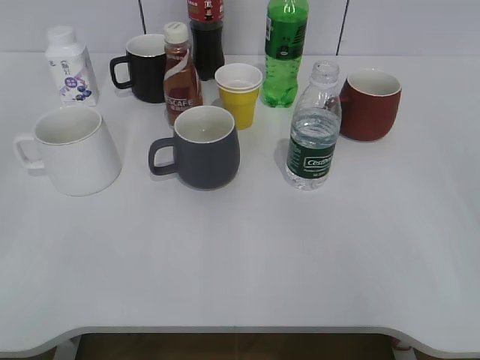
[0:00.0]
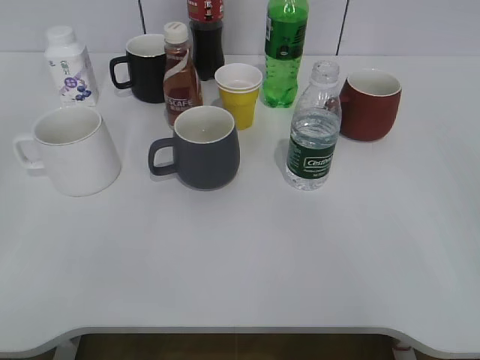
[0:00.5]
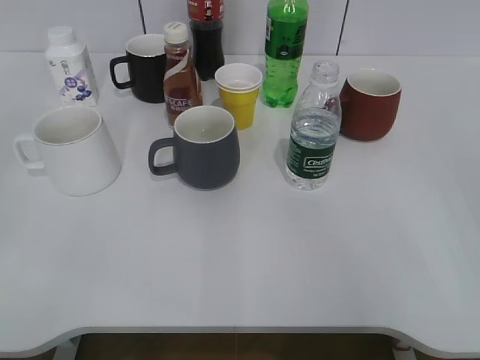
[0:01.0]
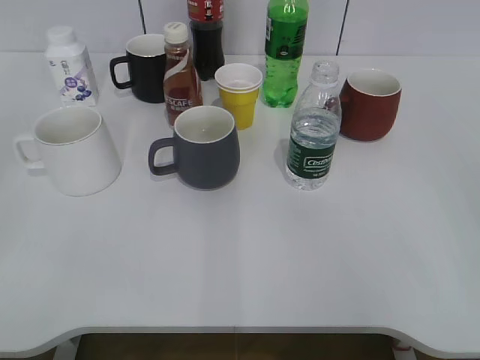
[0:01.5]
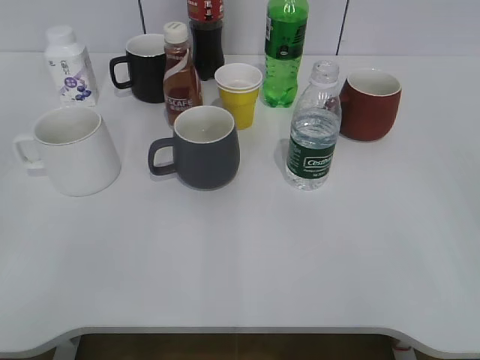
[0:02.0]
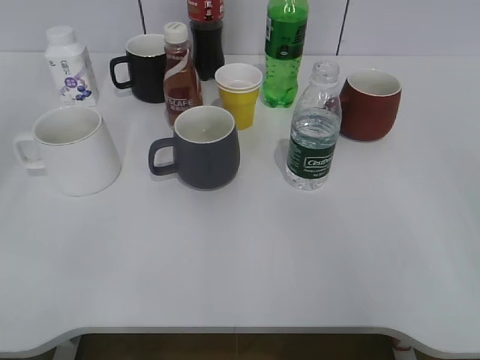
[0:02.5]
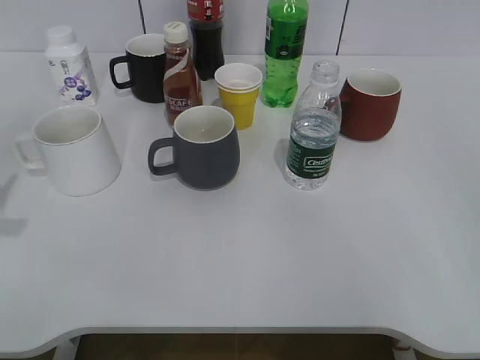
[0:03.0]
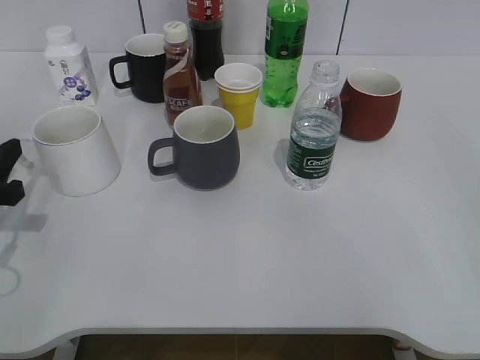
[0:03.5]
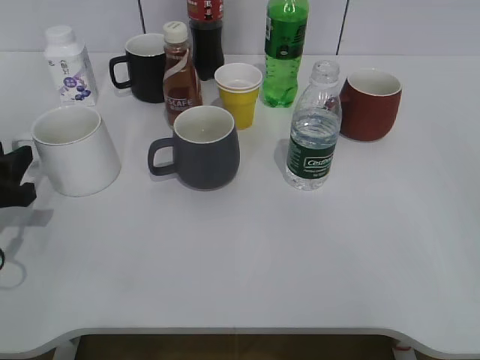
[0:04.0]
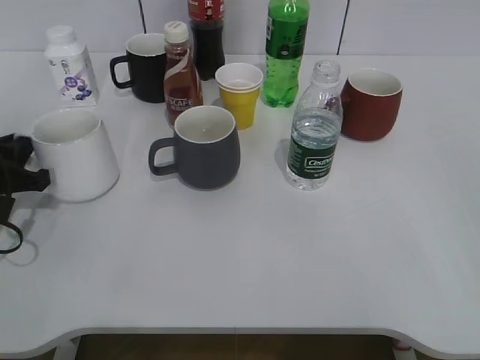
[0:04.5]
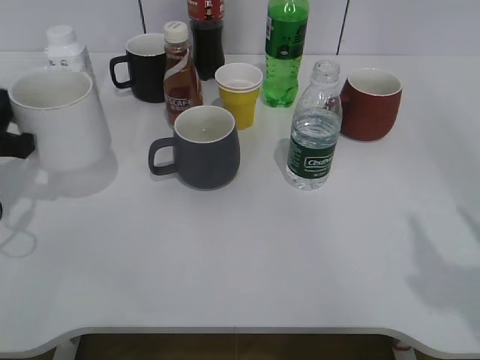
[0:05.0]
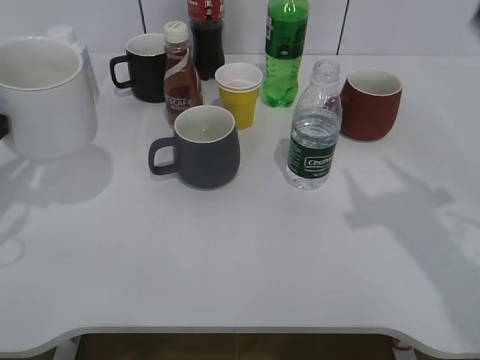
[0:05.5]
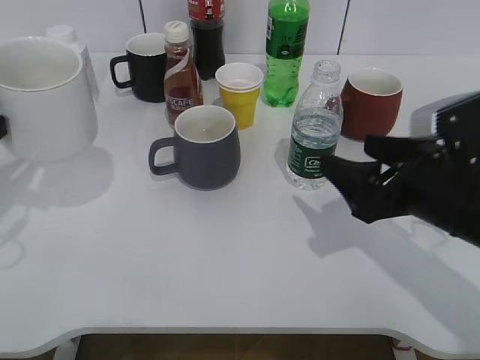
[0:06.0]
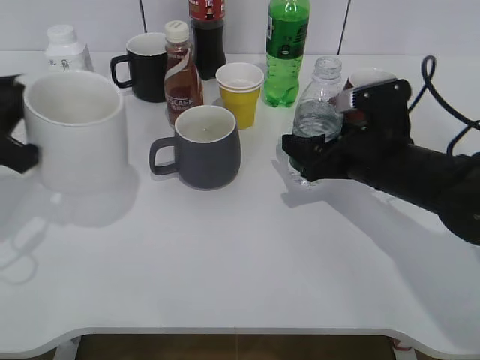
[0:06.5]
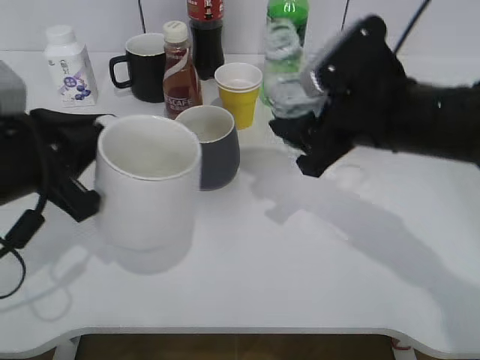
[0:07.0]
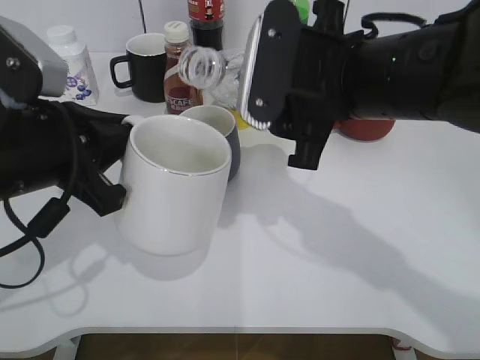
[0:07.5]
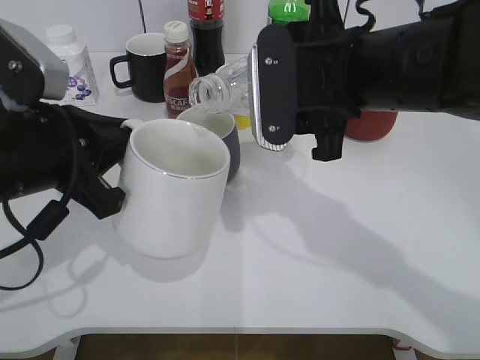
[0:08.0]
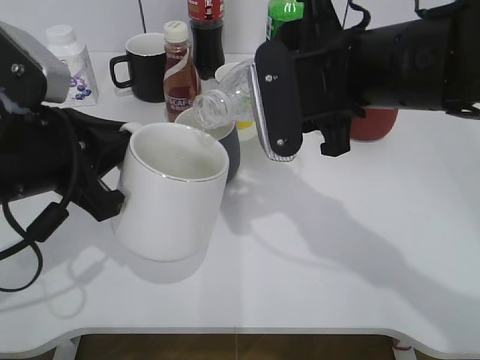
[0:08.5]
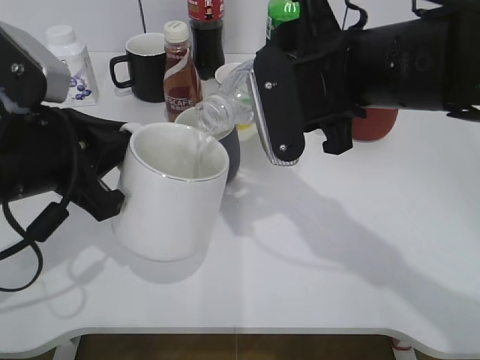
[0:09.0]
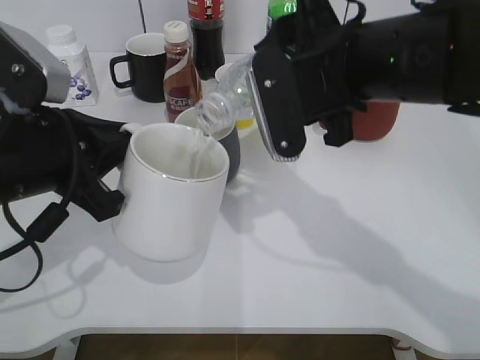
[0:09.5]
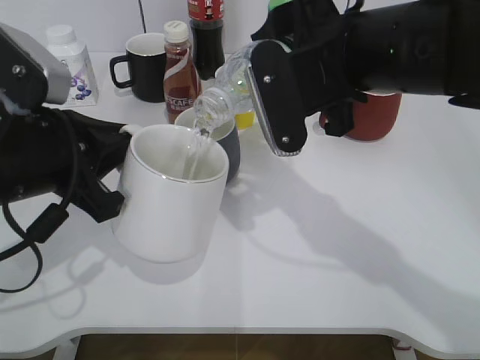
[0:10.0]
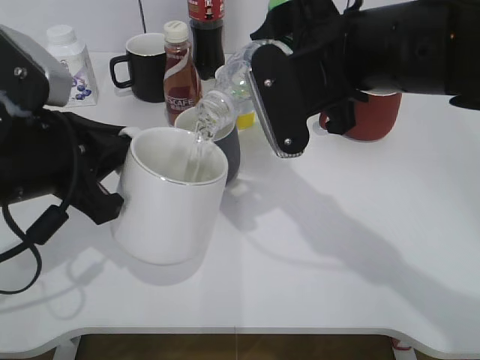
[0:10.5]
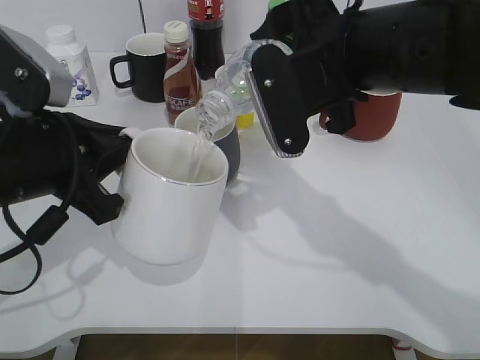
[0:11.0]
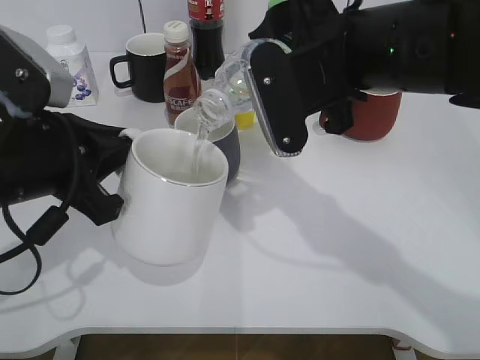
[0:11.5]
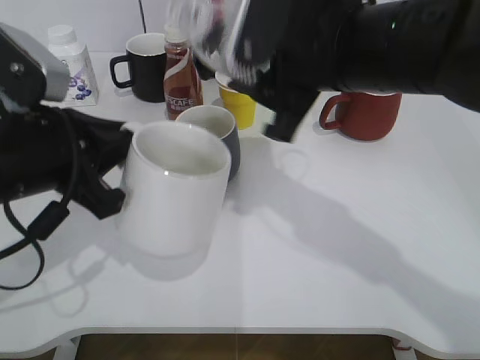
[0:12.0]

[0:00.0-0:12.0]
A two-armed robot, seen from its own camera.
Step, 0:02.0 to 0:04.0: Grasp the white cup with left gripper.
Step, 0:07.0 to 0:11.5: Pour the water from bottle to cup with right gripper.
0:02.0 to 0:04.0: The left gripper goes some 30 cm forward and downward.
0:04.0 to 0:06.0: The right gripper travels forward, to the left and downward by approximately 25 cm. The left gripper shifts some 10 cm upward, and closes.
0:06.0 to 0:08.0: The right gripper moves to the left and upward, some 15 cm, and closes up. Meanwhile the left gripper moves to the right, roughly 10 cm.
0:08.0 to 0:10.0: The grippers make only small movements.

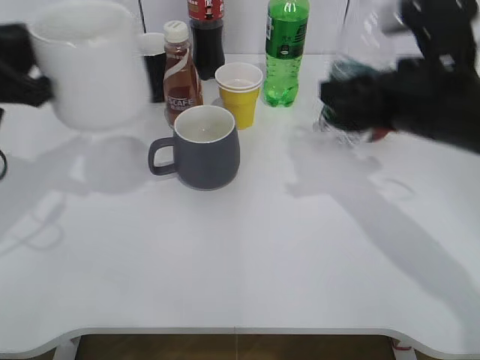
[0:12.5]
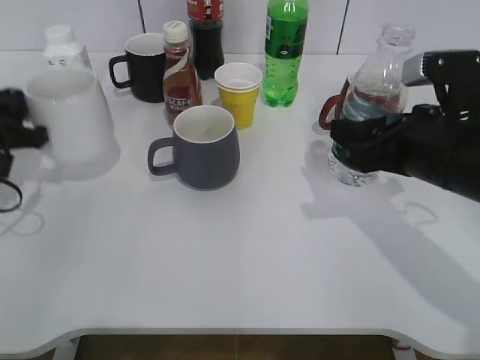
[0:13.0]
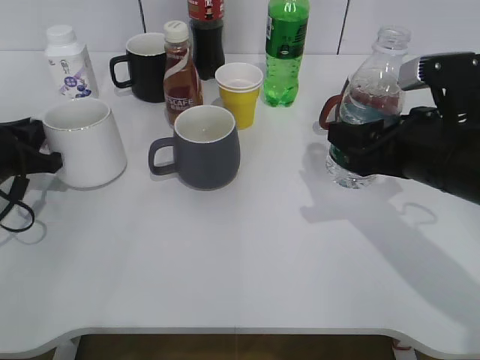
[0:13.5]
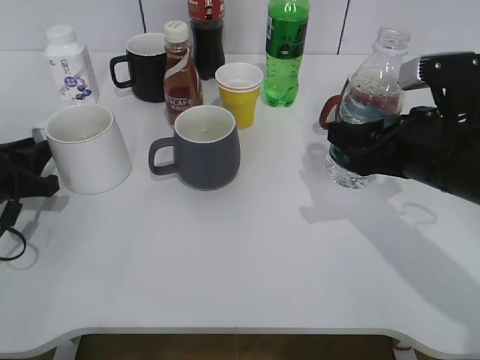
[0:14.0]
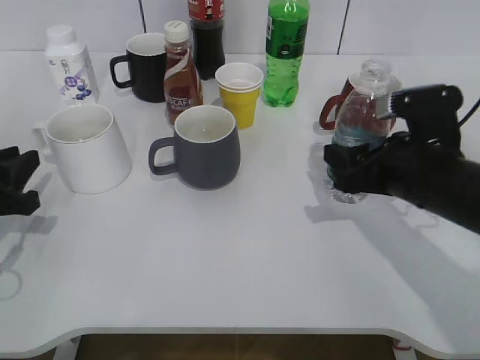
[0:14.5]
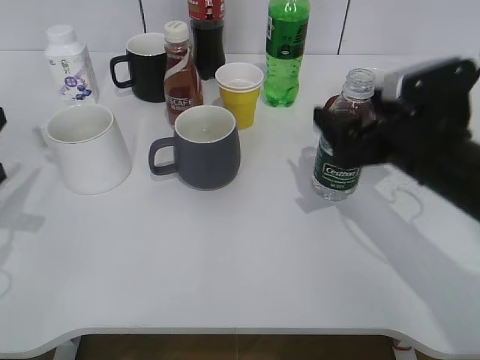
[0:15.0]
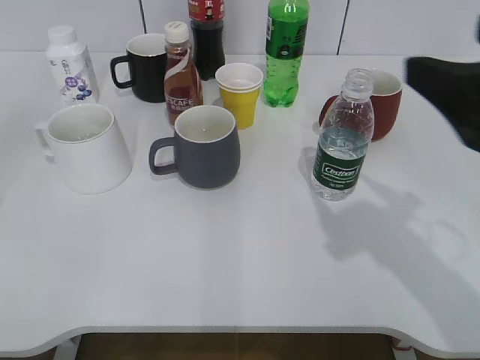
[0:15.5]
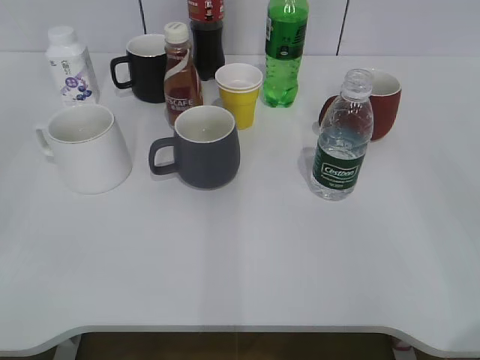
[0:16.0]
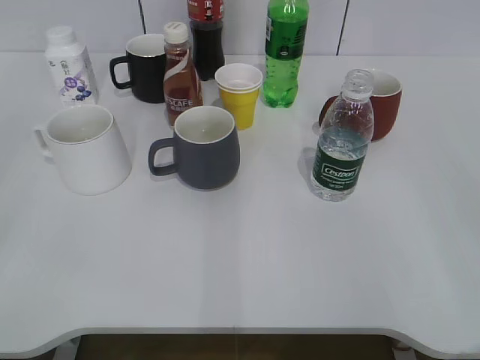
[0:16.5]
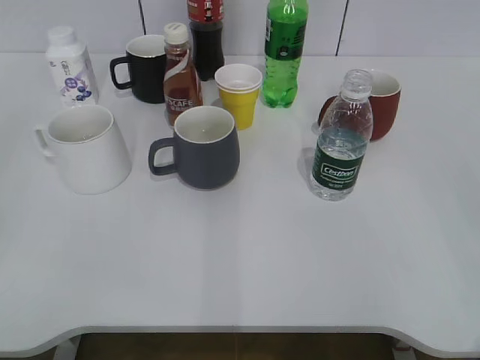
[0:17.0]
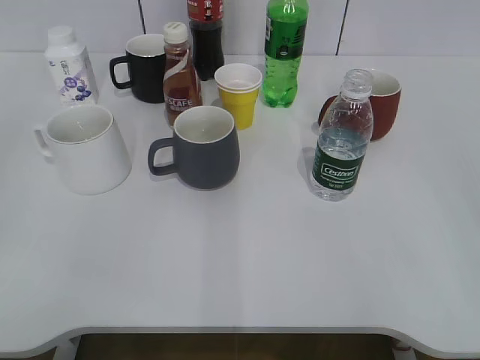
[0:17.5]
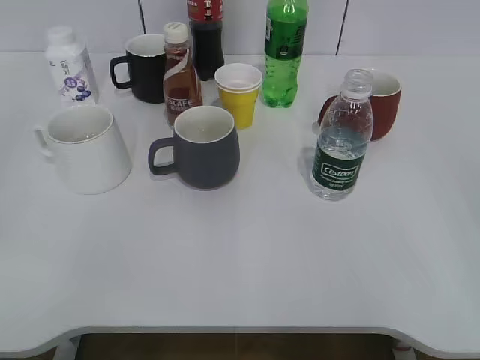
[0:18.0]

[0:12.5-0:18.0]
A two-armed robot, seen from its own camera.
Step, 0:12.5 to 0:13.5: Place the white cup on the table with left gripper.
Step, 0:14.0 to 0:14.5: Place the water bottle on the table with right gripper.
0:12.5 to 0:14.5: The right gripper travels downward by about 10 cm; the left gripper moves downward, about 10 cm.
0:14.5 to 0:16.0: The left gripper is displaced backward and upward by roughly 30 cm, and opens up; the right gripper shifts roughly 30 cm backward, upward and to the right, and opens.
